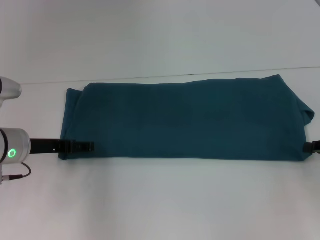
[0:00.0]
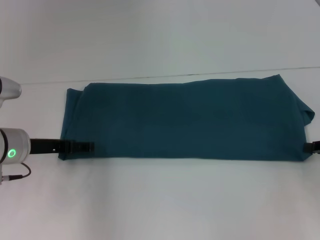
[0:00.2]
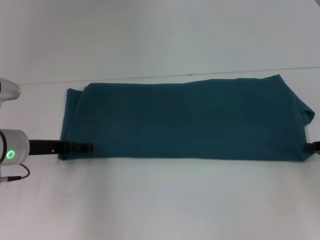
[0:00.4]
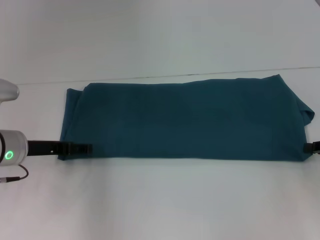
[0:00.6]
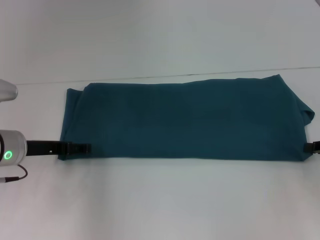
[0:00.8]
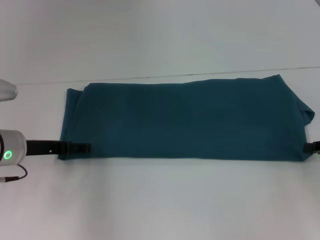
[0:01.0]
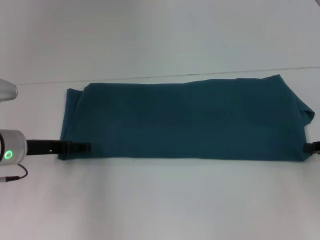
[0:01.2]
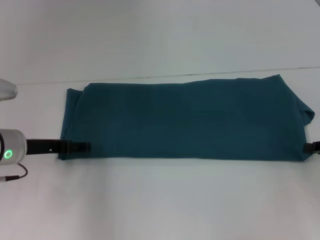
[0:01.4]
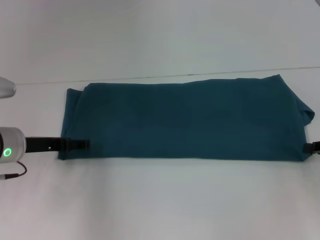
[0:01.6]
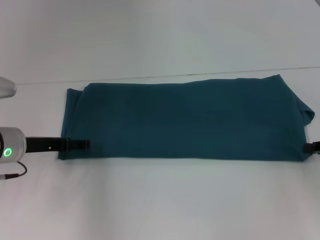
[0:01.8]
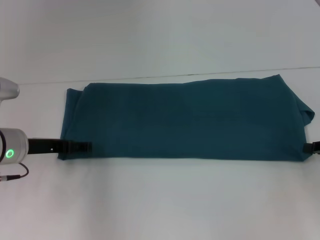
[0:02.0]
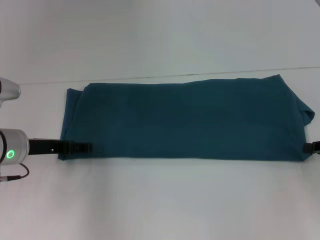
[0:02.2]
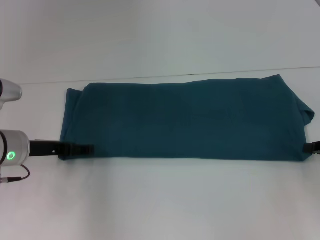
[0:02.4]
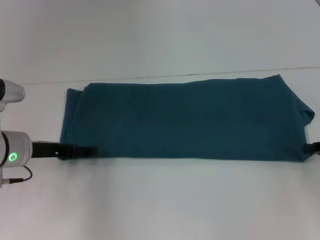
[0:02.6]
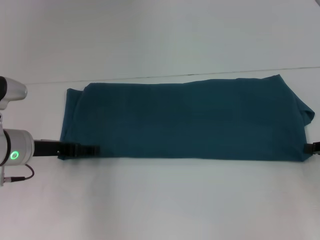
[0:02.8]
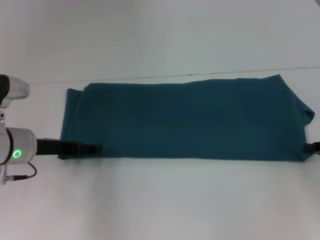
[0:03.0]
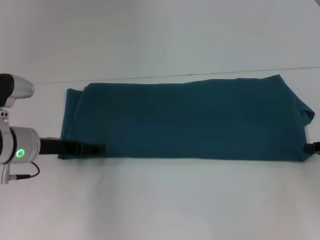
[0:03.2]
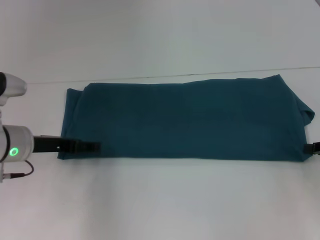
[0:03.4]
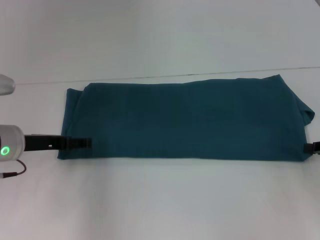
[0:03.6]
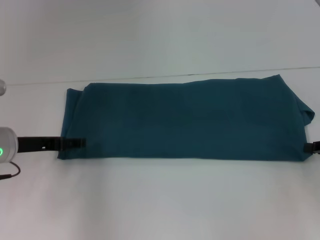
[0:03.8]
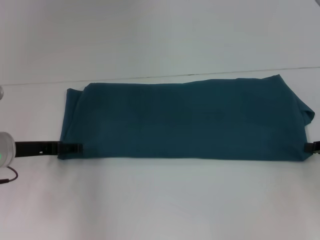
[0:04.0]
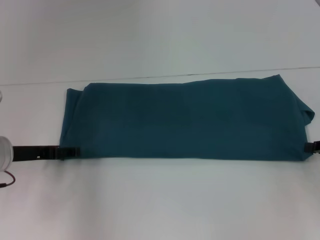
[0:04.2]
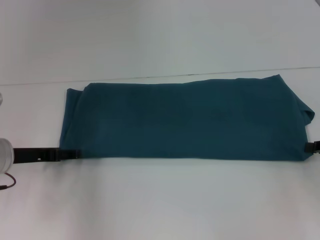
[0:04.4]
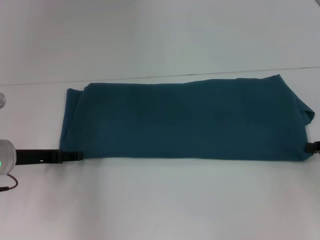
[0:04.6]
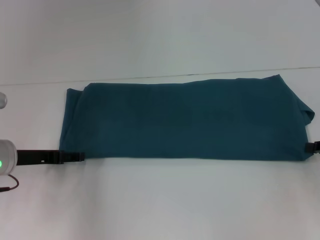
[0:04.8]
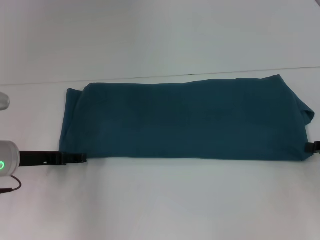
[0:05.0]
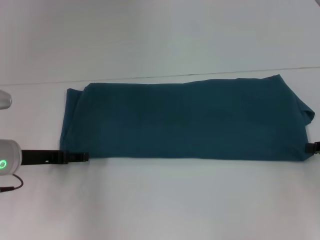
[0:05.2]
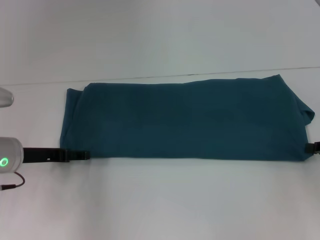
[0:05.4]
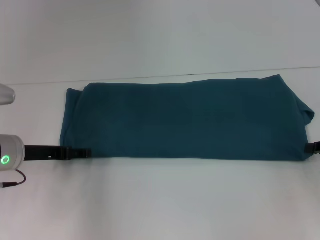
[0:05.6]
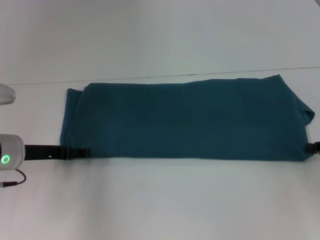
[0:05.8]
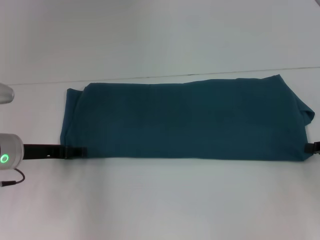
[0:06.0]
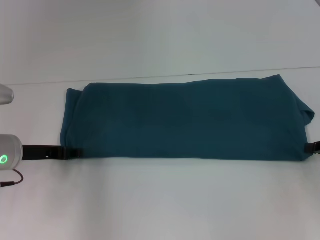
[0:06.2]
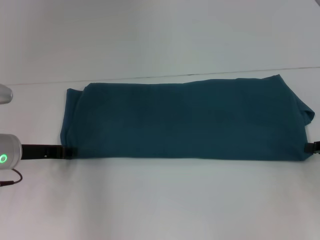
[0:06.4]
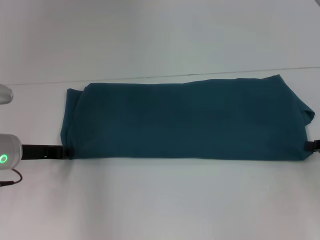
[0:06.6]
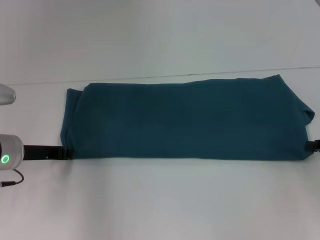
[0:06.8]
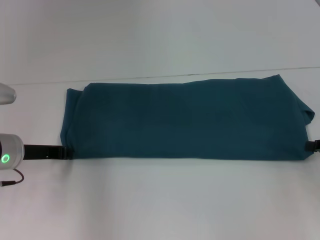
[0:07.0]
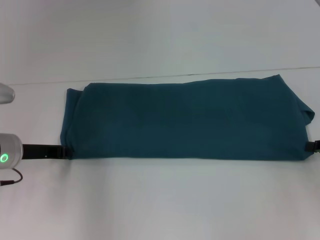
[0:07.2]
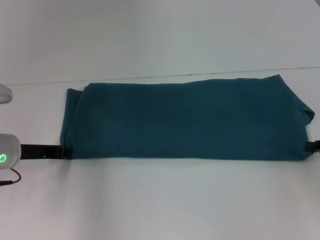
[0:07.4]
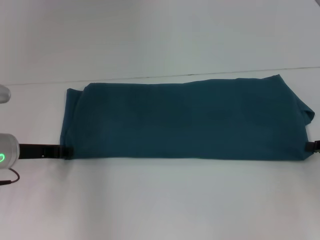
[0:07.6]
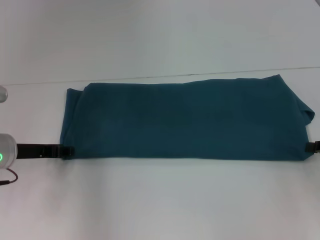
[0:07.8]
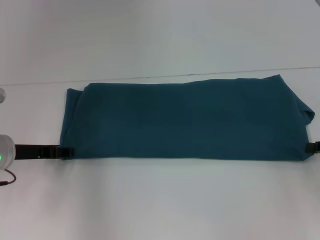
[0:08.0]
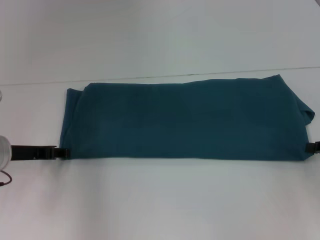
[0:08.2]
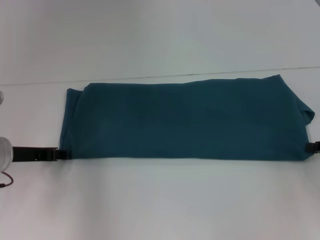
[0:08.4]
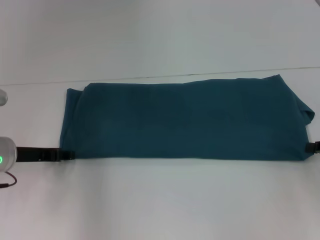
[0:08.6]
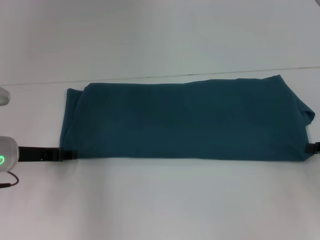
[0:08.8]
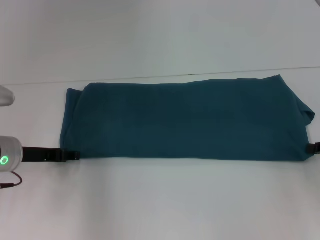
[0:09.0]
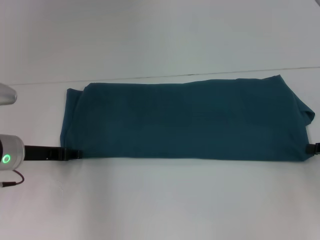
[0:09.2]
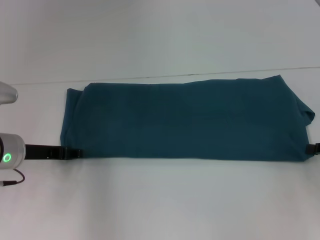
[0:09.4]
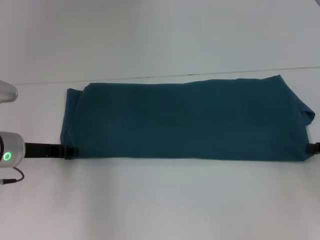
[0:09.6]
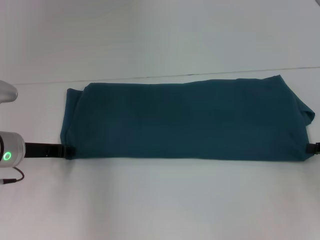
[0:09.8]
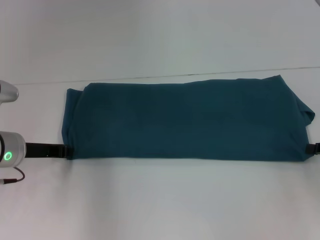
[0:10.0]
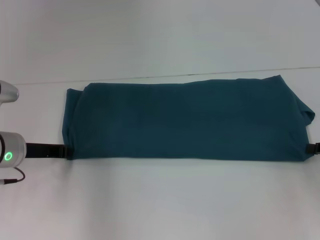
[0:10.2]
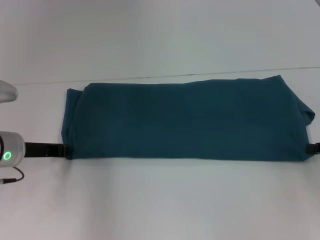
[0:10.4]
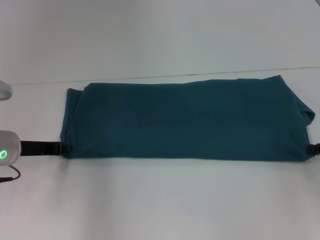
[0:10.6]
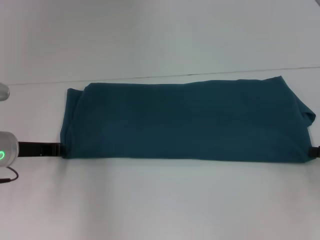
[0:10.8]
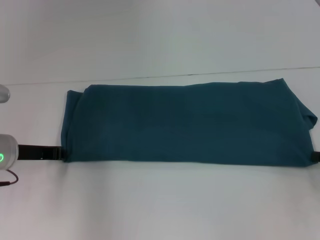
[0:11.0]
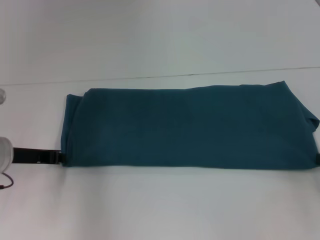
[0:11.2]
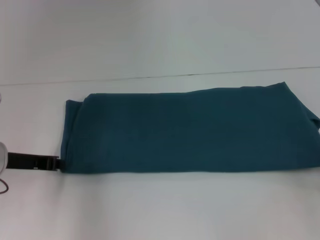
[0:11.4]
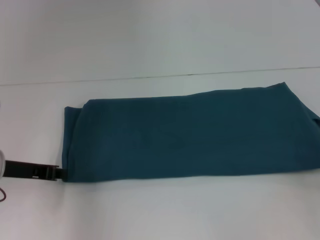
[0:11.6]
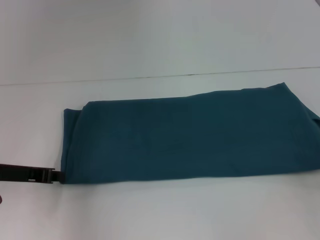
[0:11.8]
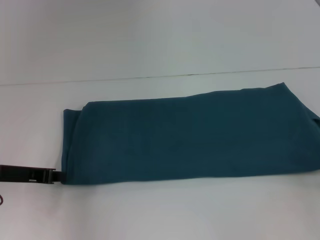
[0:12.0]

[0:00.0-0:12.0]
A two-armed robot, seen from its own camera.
0:00.0 to 0:01.6: The two grippers keep their place.
0:01.6 to 0:06.0: The grippers make only small movements.
0:06.0 to 0:07.6: The left gripper closes.
0:07.6 to 0:09.0: The left gripper opens up.
0:09.0 to 0:10.4: The left gripper closes.
0:10.4 to 0:12.0: The left gripper ends up roughly 5 cm from where it was.

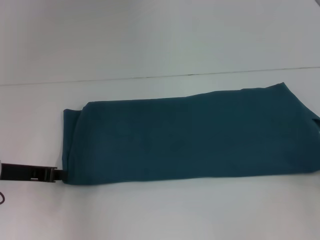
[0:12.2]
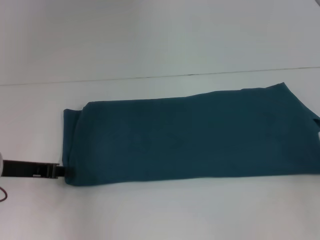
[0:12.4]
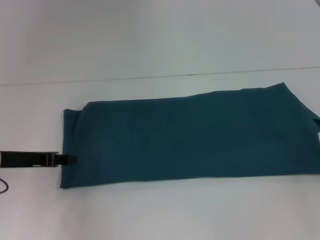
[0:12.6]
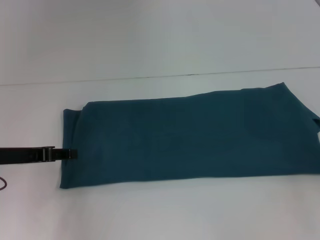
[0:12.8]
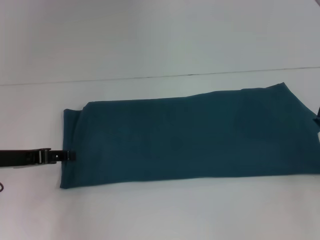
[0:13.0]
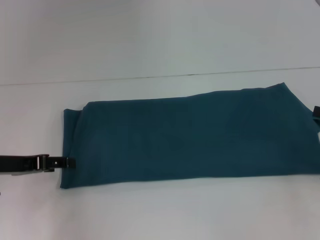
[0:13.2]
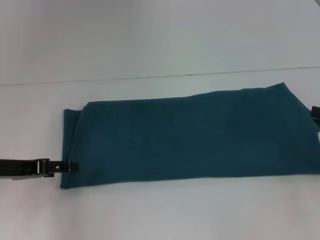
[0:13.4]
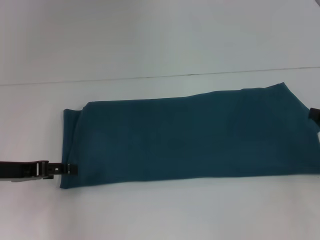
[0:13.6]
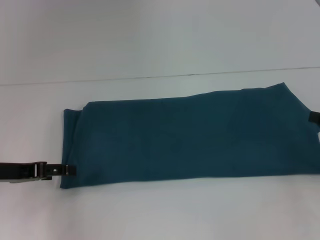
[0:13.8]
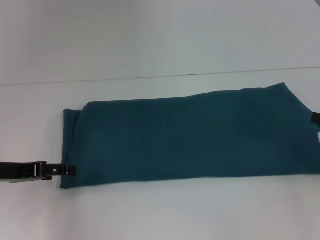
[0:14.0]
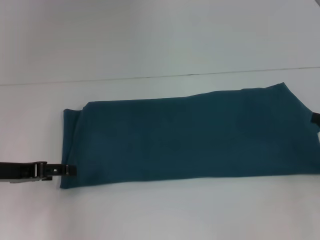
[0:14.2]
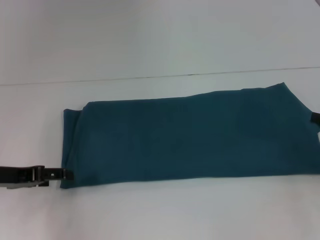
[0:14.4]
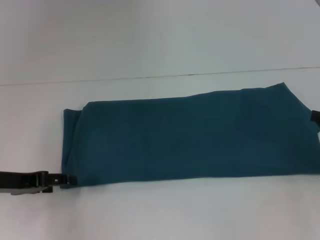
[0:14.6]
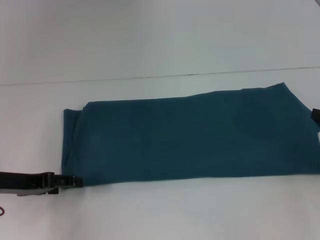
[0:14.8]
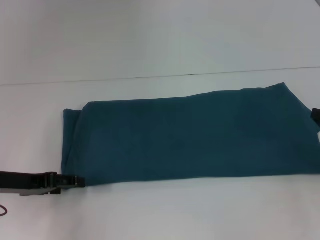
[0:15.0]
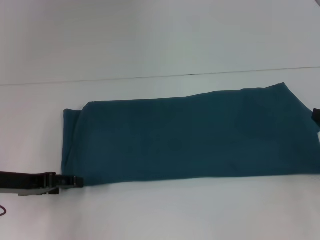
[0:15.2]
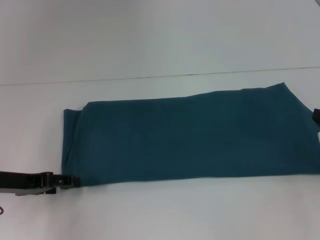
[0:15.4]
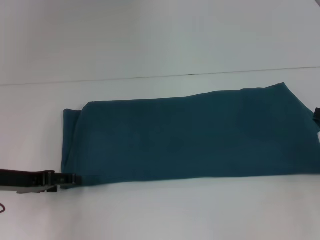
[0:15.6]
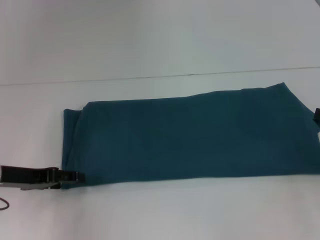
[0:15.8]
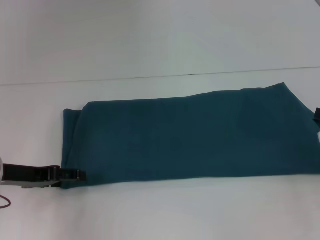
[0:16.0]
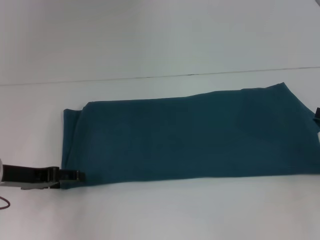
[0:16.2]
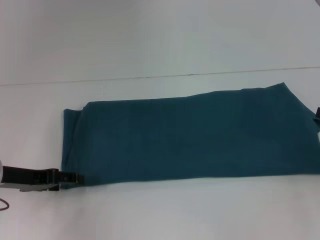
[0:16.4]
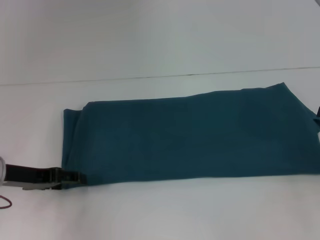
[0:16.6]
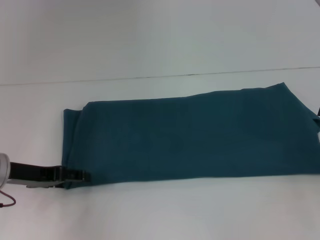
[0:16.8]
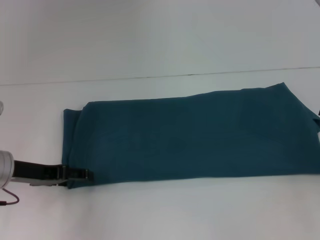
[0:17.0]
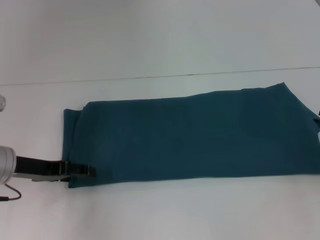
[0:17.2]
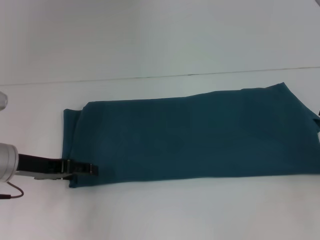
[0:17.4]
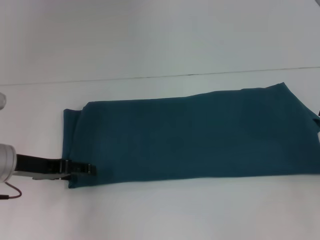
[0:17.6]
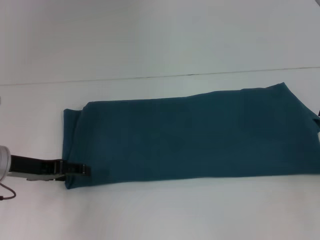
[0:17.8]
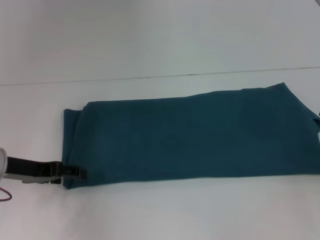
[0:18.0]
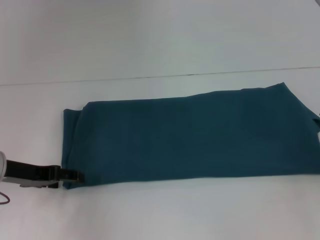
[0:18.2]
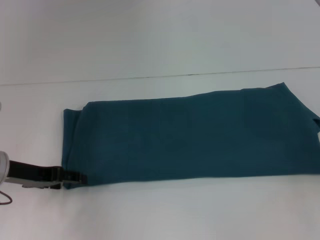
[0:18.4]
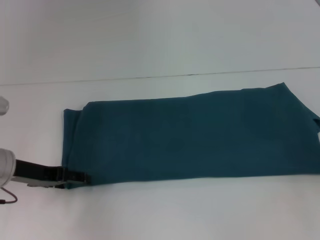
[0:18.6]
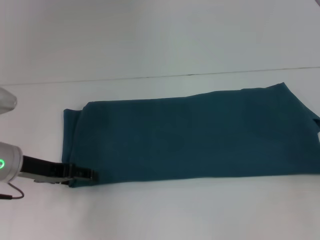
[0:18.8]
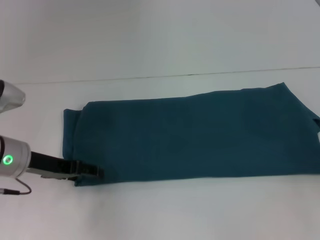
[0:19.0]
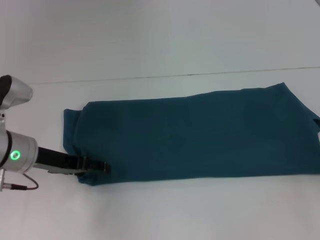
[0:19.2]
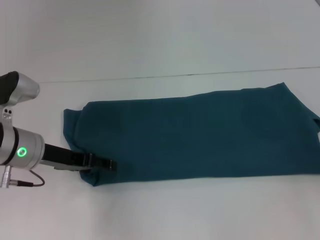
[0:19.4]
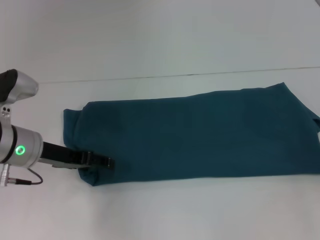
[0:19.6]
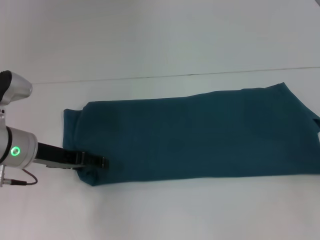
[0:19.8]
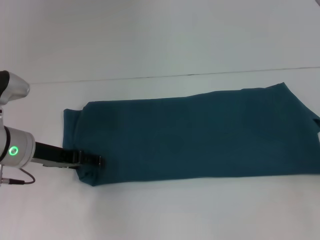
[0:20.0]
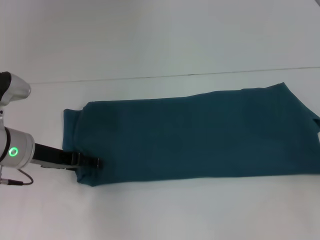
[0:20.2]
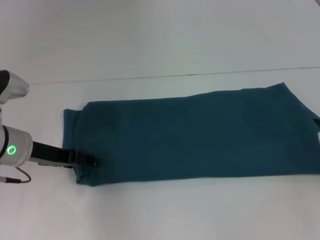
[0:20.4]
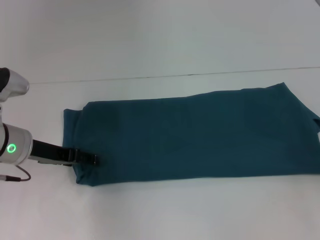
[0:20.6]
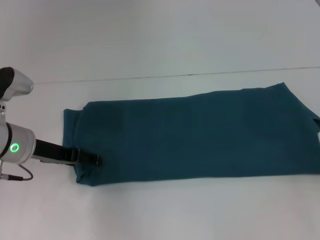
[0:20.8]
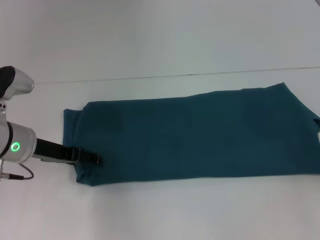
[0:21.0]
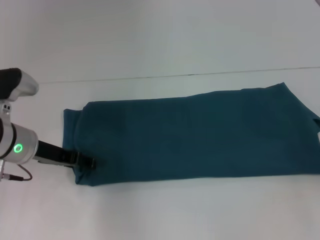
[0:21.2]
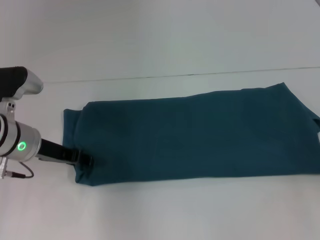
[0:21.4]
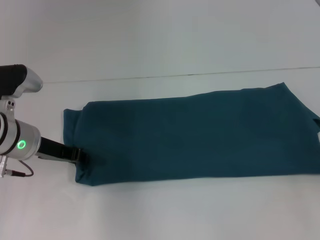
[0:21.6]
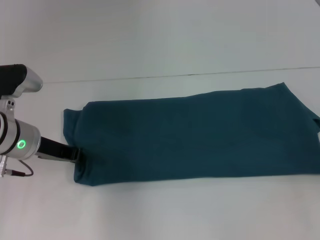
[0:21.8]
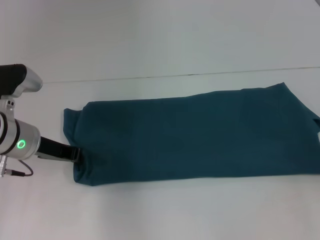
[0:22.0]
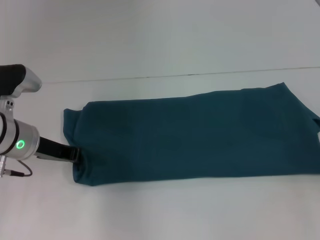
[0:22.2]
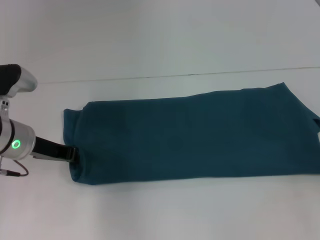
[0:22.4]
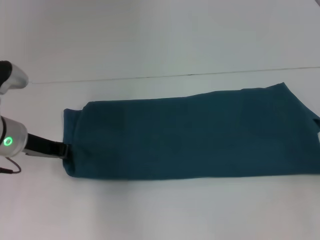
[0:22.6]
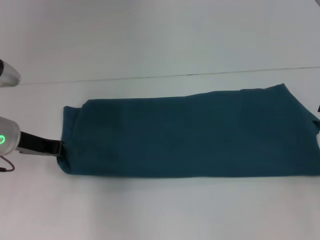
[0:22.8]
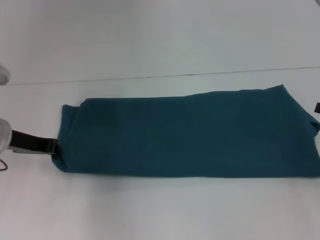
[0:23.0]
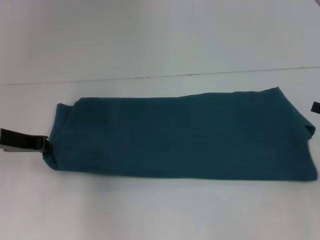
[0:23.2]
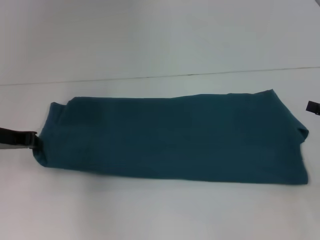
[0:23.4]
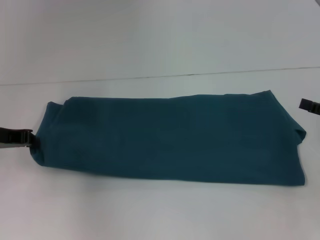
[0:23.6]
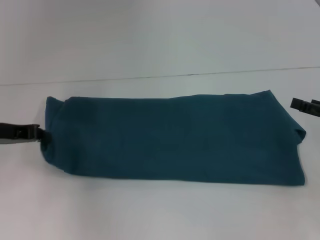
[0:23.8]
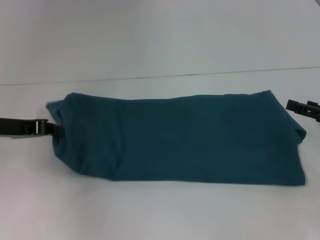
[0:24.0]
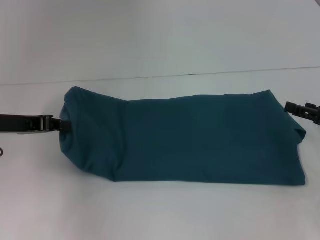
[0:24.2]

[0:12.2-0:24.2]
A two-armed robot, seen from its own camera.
0:12.2 to 0:13.8: The left gripper opens up.
0:13.8 to 0:18.2: There are only small adjustments of the grippers.
0:18.2 to 0:19.8: The left gripper ends up roughly 5 cm from where it was.
0:19.8 to 0:21.2: The grippers make only small movements.
0:21.2 to 0:22.6: The left gripper closes up.
0:22.6 to 0:24.2: The left gripper shifts by roughly 5 cm. Meanwhile the right gripper moves roughly 5 cm.
